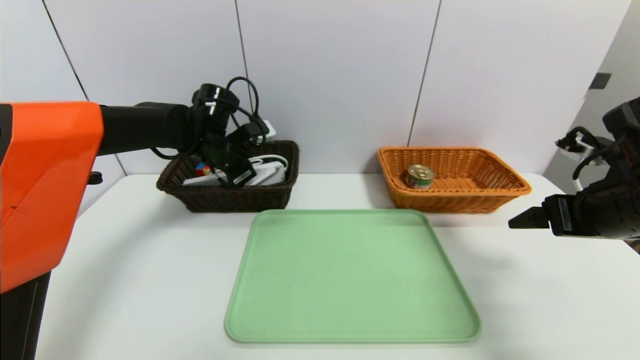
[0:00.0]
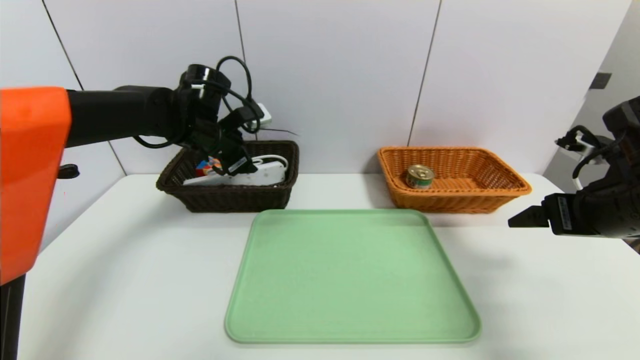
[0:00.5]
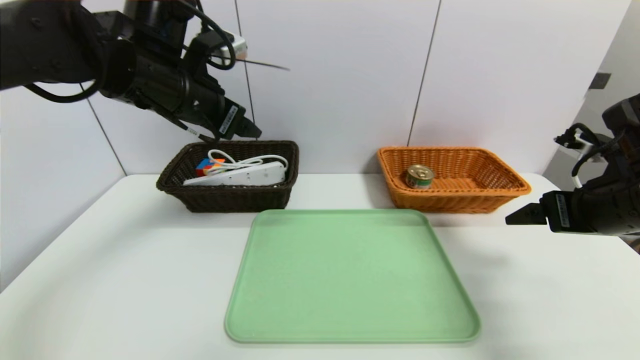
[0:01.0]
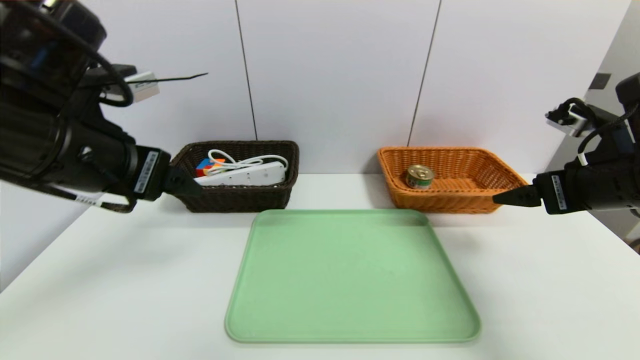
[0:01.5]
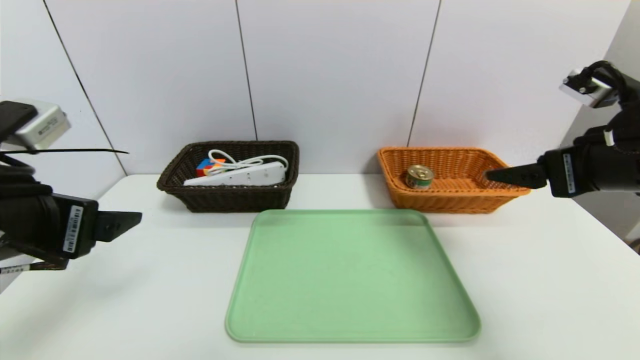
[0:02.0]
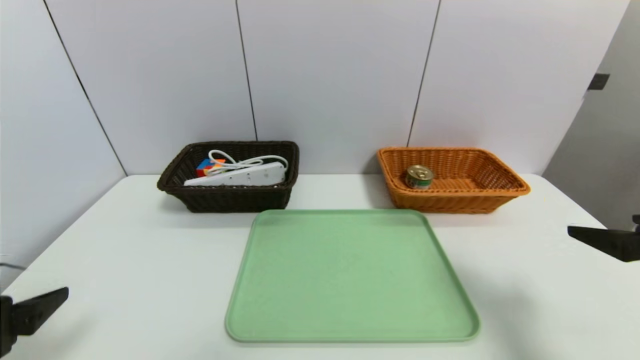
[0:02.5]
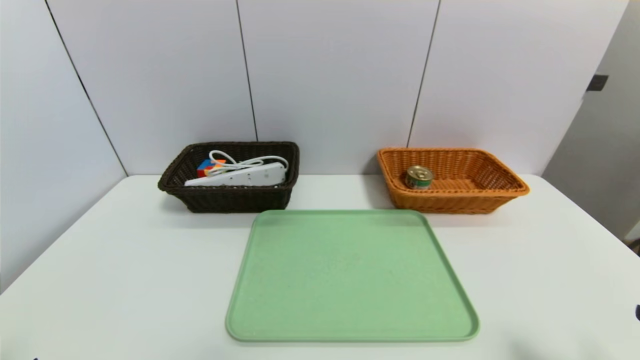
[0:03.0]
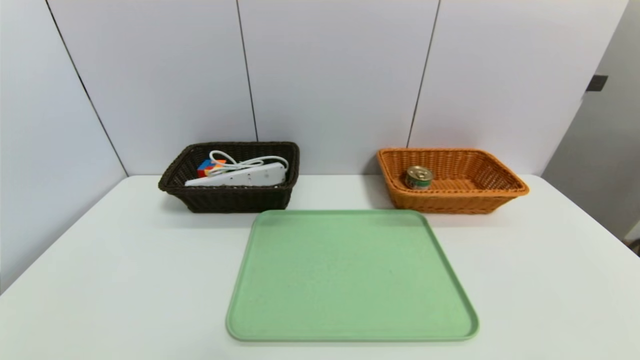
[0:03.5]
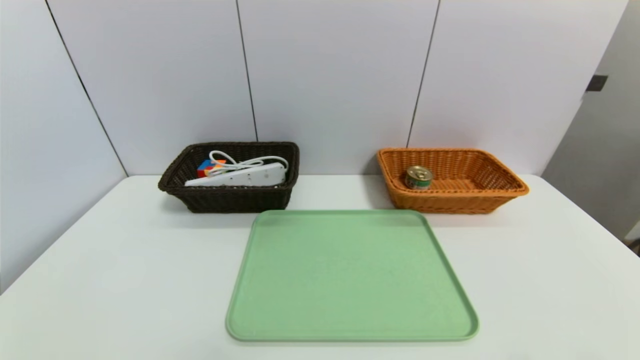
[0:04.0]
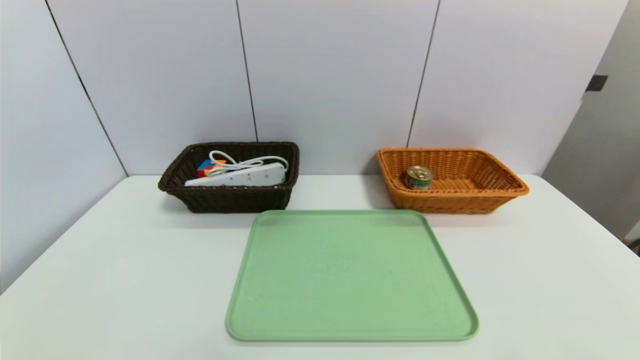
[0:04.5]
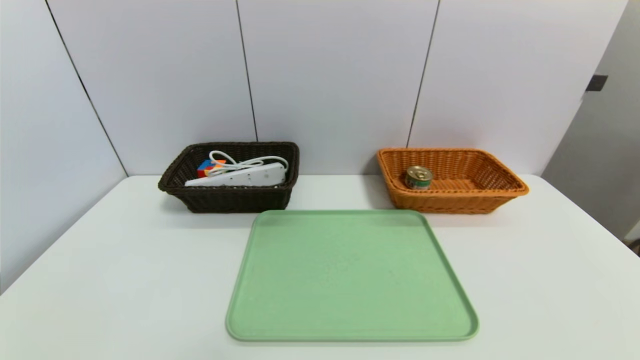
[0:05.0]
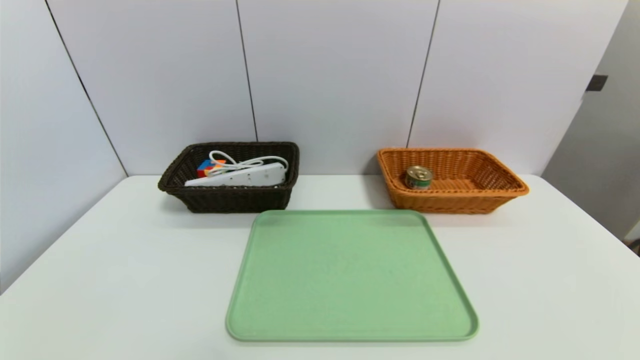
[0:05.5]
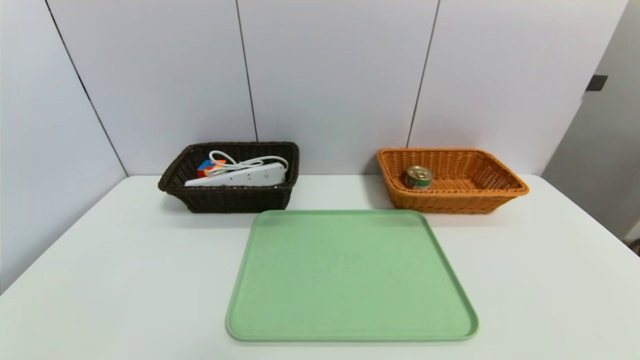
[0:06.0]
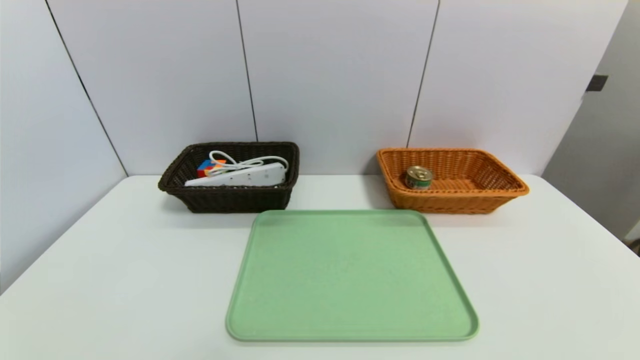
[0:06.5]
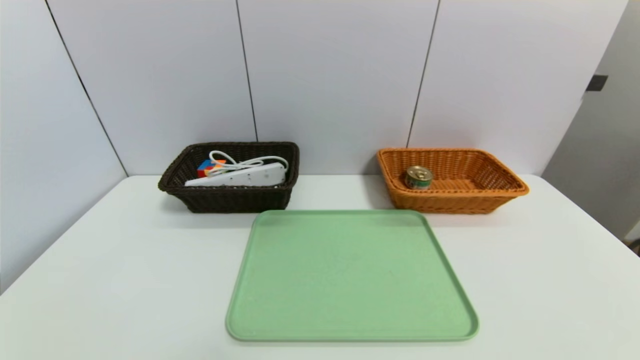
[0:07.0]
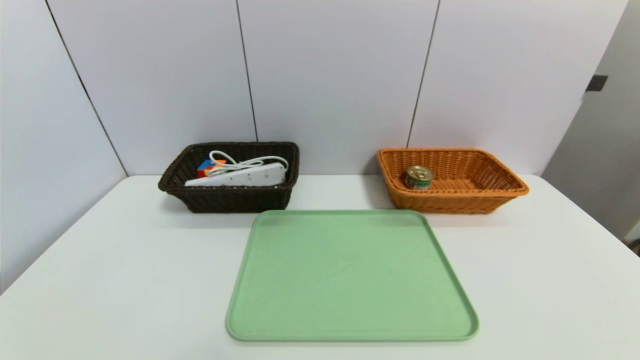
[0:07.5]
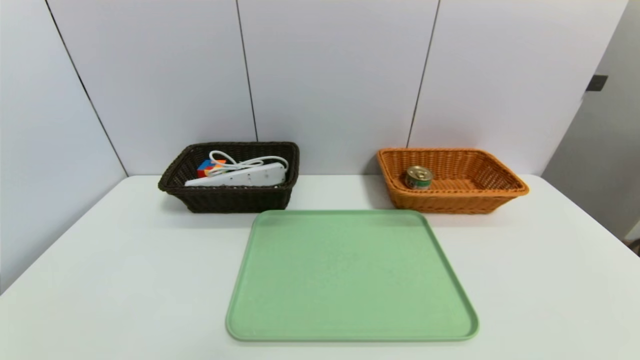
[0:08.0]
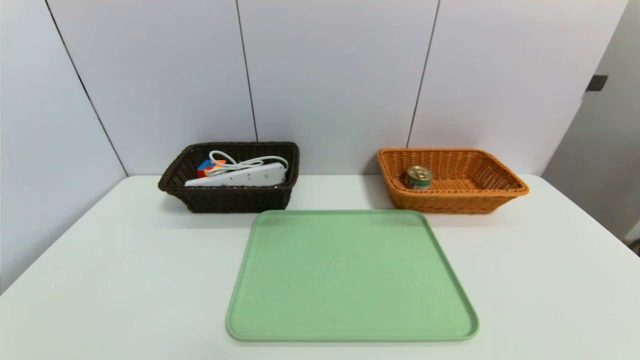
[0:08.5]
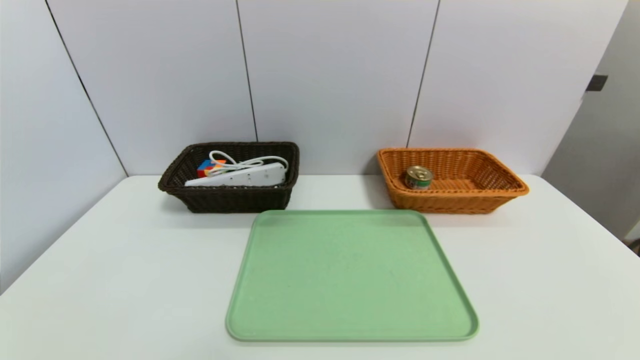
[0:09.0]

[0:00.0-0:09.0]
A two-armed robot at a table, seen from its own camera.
Task of the whole recording: place the food in the right basket with the right gripper, and place the non food items in the left basket with the left gripper.
0:00.0 to 0:02.0: The right gripper shifts roughly 5 cm upward, while the left gripper goes some 30 cm backward, and opens its fingers.
0:02.0 to 0:04.5: The grippers both shift backward and downward by roughly 25 cm.
